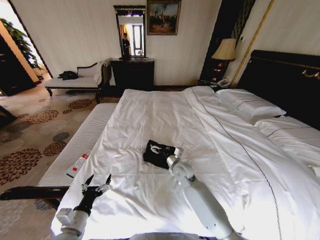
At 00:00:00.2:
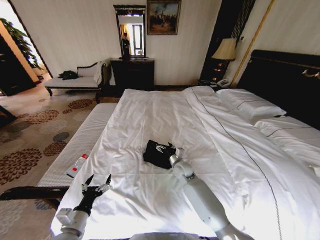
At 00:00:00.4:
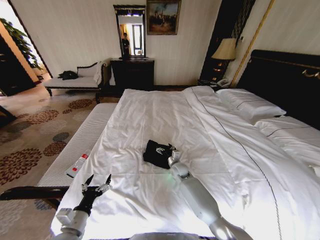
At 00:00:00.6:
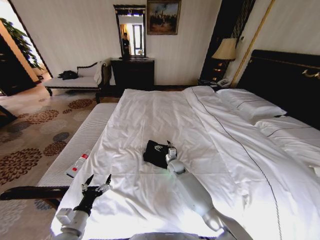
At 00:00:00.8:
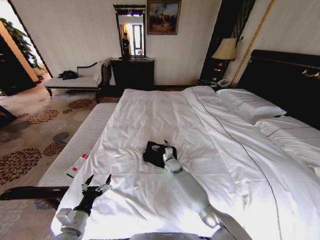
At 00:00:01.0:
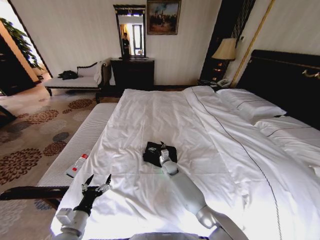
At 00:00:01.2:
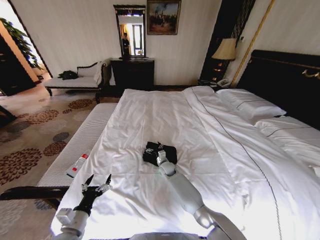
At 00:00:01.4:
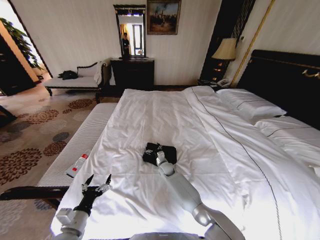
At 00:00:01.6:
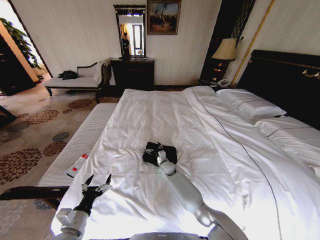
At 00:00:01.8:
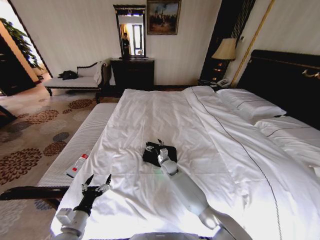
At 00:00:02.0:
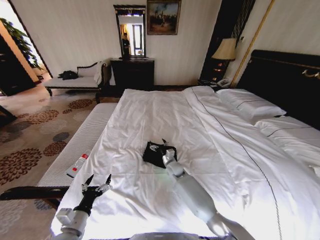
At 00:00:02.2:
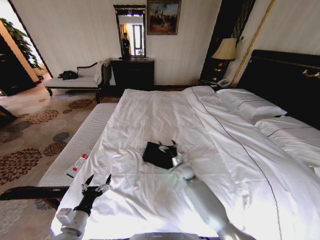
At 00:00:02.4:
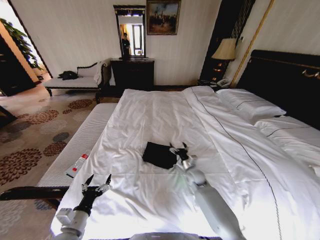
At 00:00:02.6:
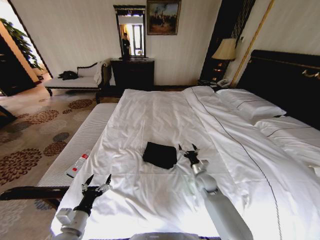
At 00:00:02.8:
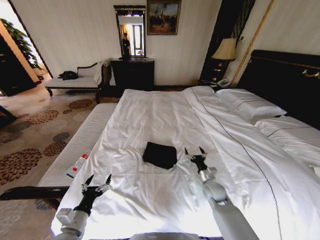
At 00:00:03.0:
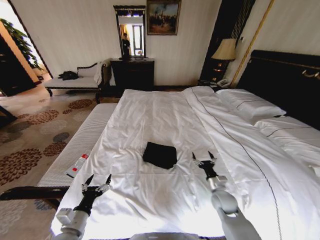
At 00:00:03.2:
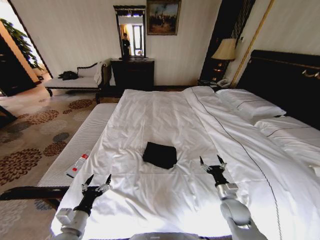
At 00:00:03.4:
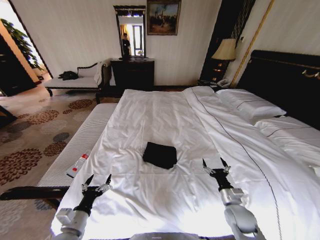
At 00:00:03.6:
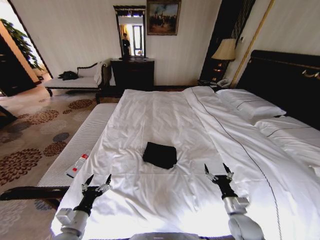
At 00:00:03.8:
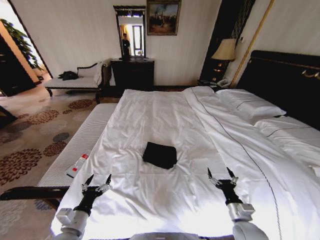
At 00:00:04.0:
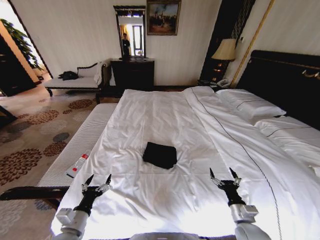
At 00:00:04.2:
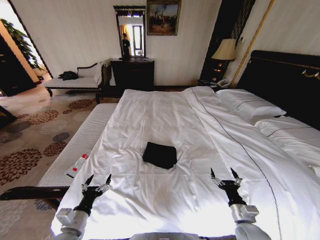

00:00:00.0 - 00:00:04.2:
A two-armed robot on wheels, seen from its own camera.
Task of the whole recording: Fold the clothes on the bed.
00:00:00.0 - 00:00:01.4: The right gripper travels downward, forward and to the left by some 15 cm.
00:00:01.4 - 00:00:02.8: The right gripper travels to the right and backward by about 25 cm.
00:00:02.8 - 00:00:04.2: The right gripper travels backward by some 15 cm.
